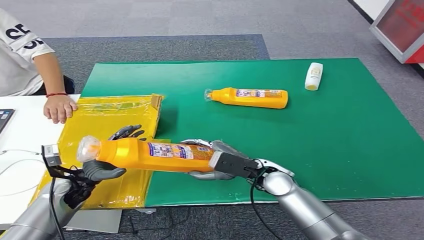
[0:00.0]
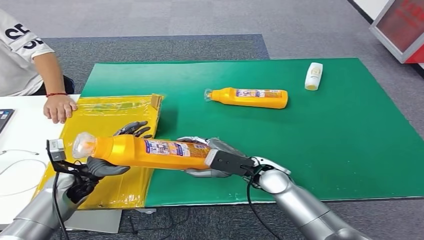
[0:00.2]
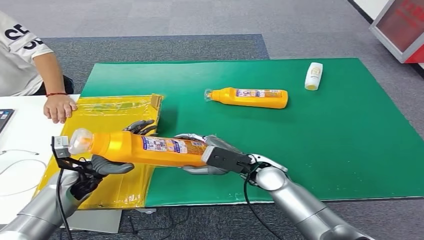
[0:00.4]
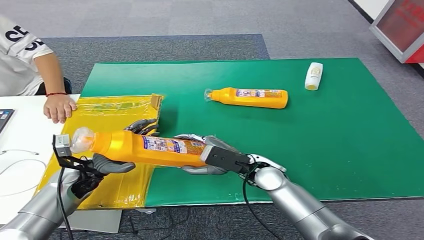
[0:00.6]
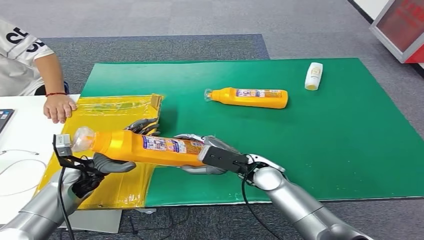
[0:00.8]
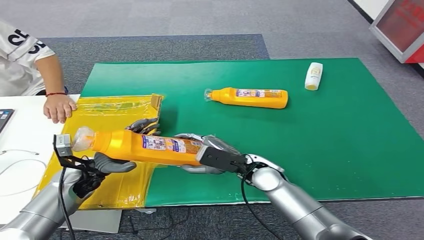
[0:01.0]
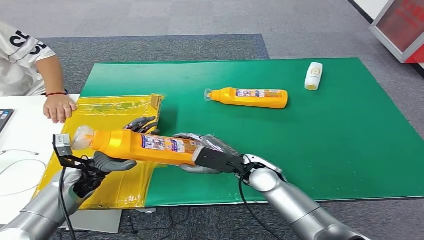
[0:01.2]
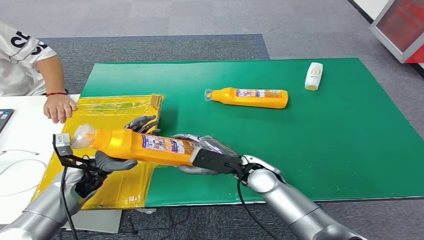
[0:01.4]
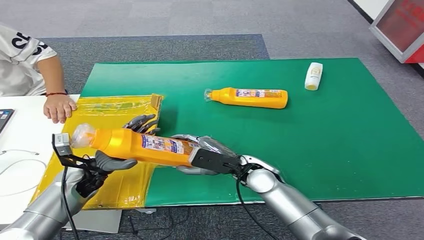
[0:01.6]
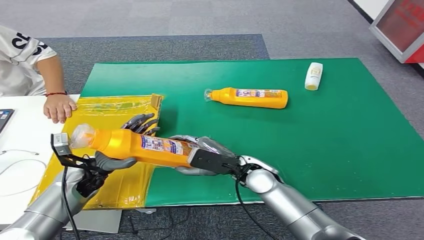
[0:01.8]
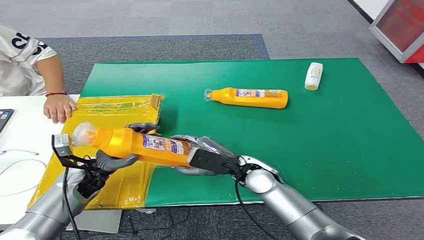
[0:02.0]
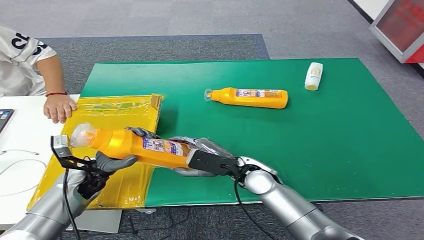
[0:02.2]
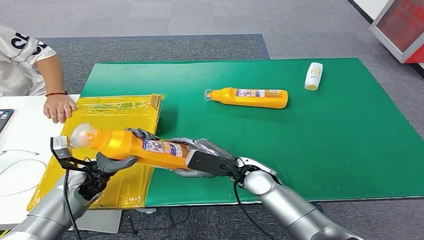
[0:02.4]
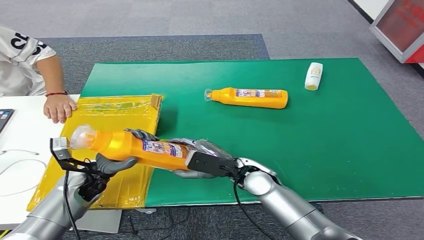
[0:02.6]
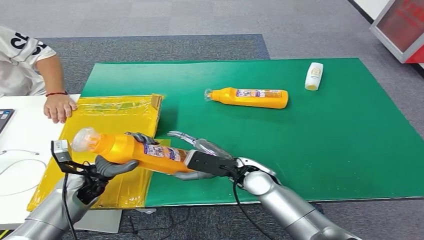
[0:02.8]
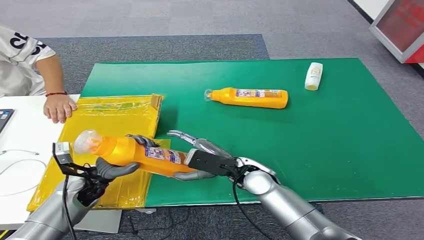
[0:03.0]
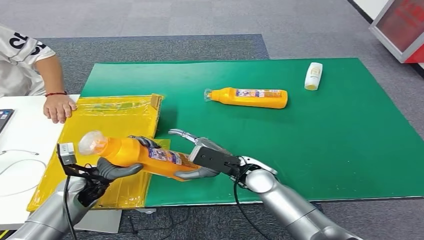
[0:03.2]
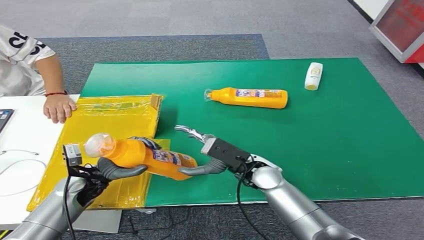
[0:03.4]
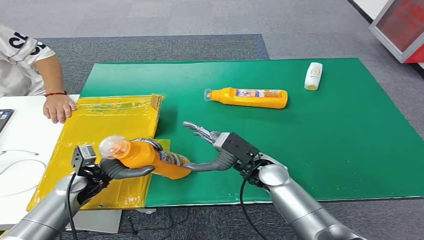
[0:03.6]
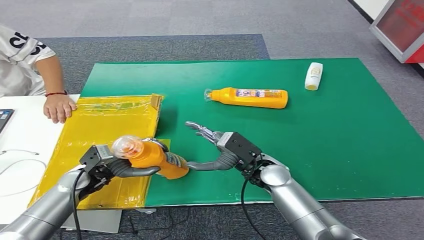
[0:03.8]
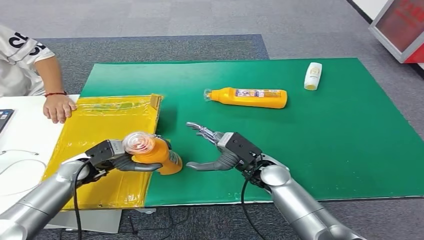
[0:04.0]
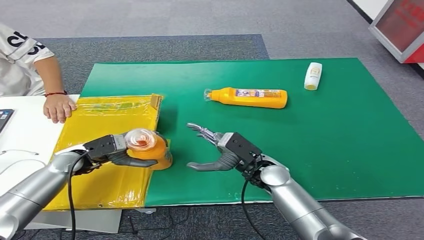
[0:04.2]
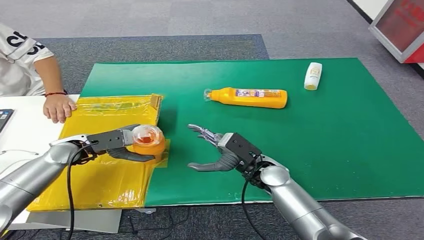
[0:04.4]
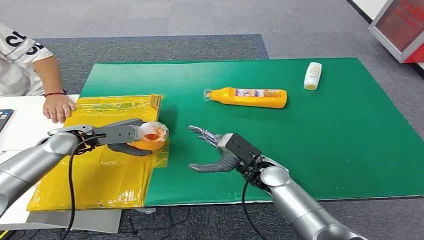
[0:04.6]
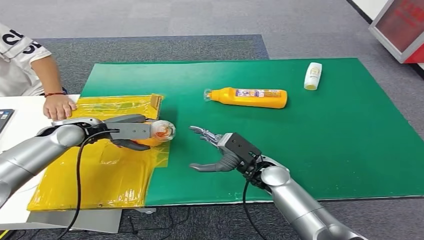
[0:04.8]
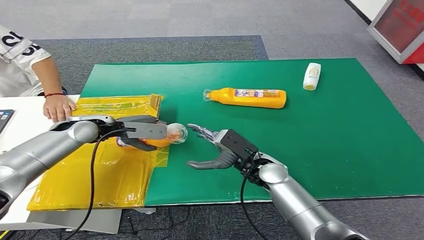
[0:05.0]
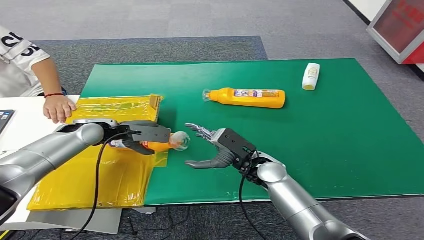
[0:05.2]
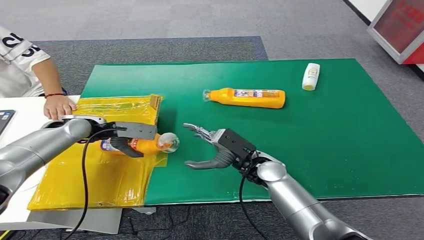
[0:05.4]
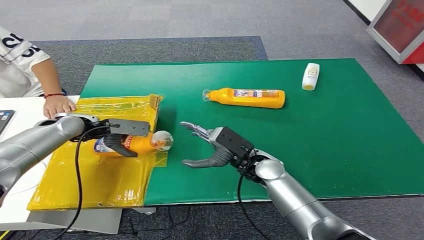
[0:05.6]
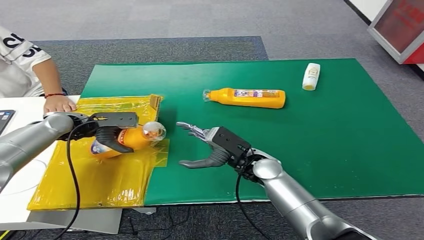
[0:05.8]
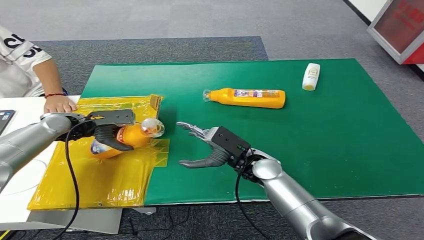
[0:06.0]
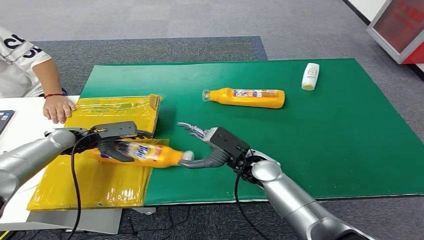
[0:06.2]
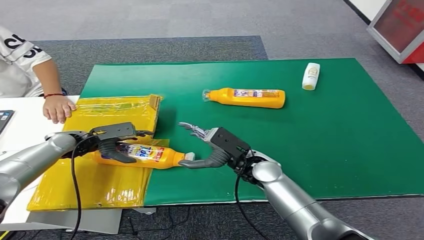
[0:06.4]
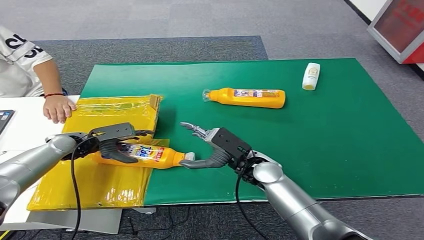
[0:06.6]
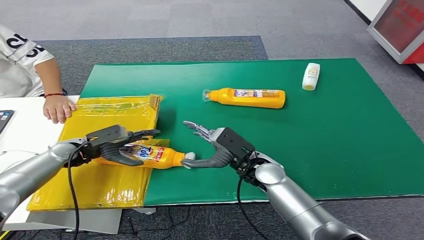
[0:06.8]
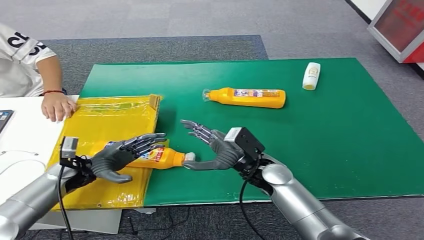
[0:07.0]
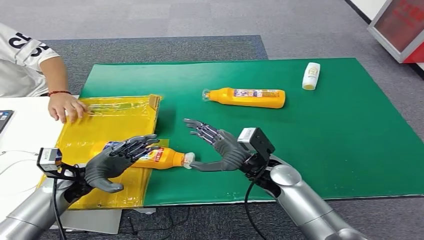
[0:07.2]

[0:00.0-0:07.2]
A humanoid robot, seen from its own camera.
Step, 0:00.0 to 0:07.2: Turn the bottle to the front side.
0:00.0 to 0:01.4: The left hand changes place by roughly 5 cm.
0:01.4 to 0:02.8: The hands move only a little.
0:02.8 to 0:04.4: The left hand travels upward and forward by about 10 cm.
0:04.4 to 0:05.8: The left hand moves forward, approximately 5 cm.

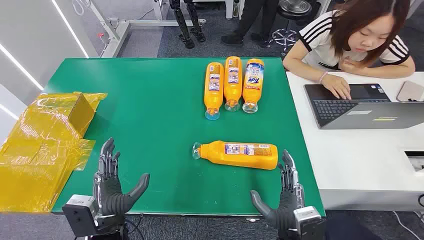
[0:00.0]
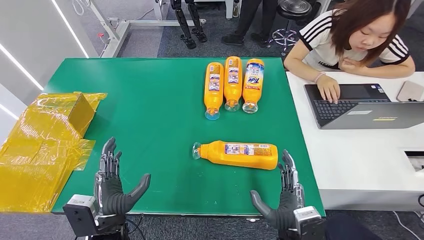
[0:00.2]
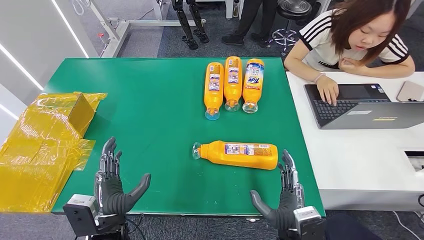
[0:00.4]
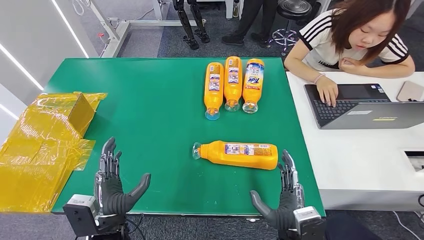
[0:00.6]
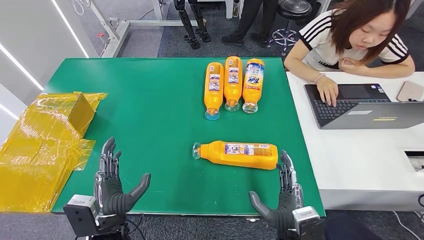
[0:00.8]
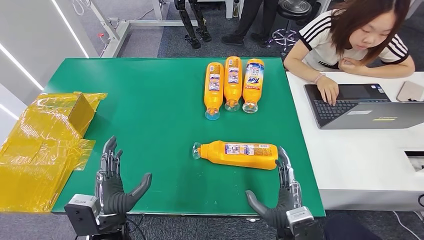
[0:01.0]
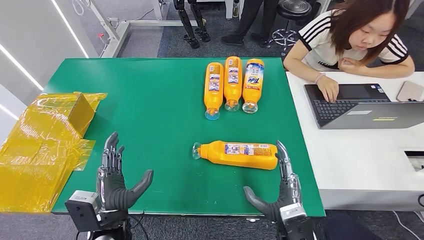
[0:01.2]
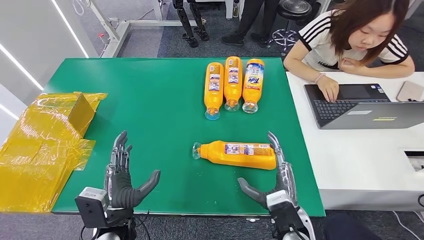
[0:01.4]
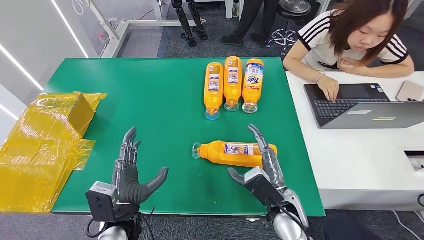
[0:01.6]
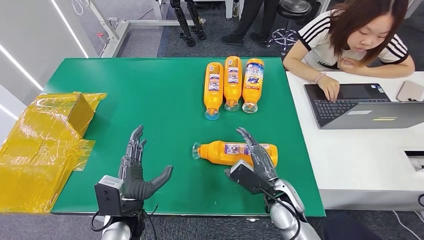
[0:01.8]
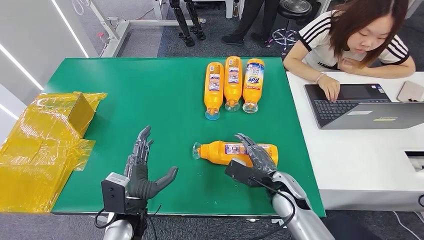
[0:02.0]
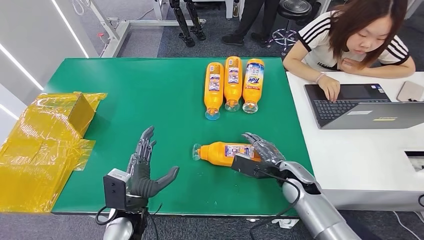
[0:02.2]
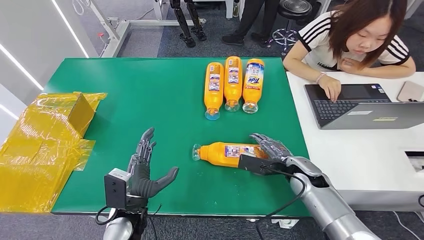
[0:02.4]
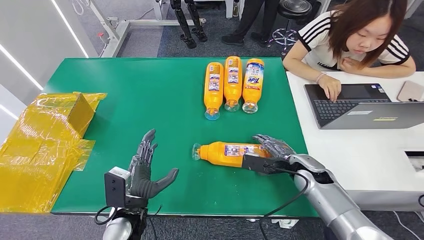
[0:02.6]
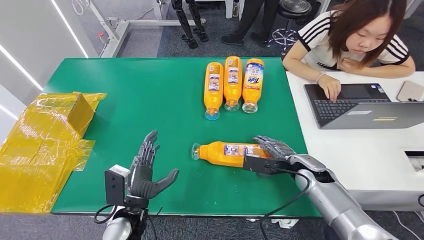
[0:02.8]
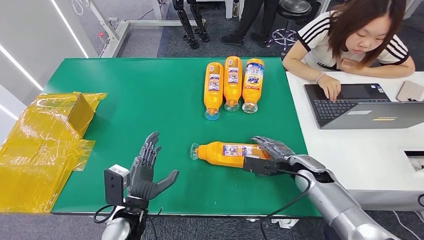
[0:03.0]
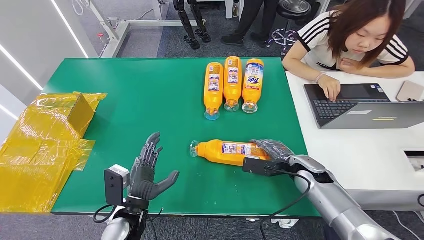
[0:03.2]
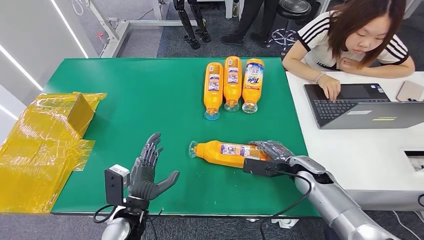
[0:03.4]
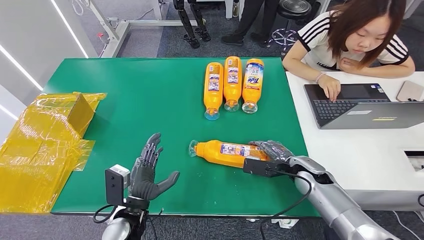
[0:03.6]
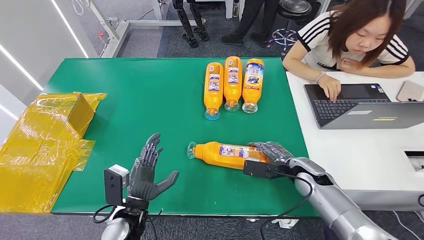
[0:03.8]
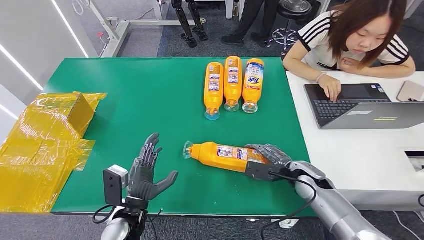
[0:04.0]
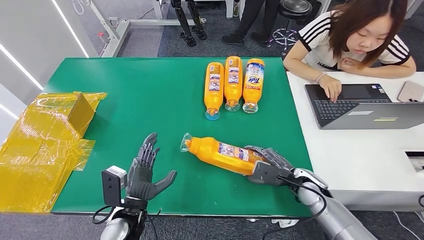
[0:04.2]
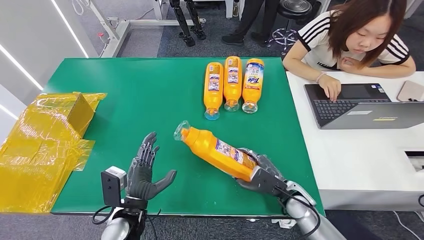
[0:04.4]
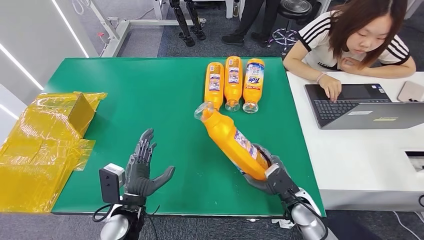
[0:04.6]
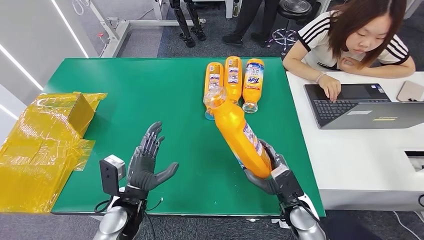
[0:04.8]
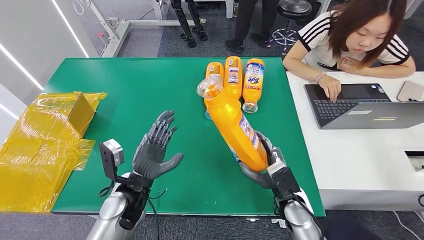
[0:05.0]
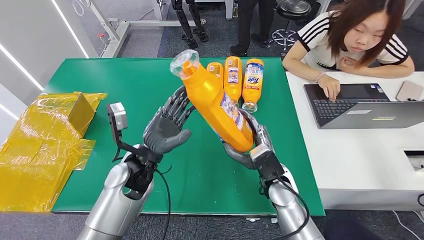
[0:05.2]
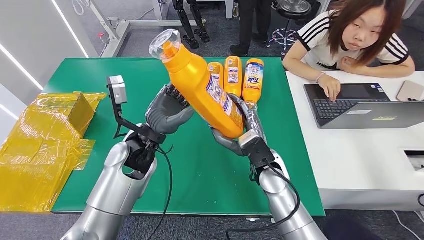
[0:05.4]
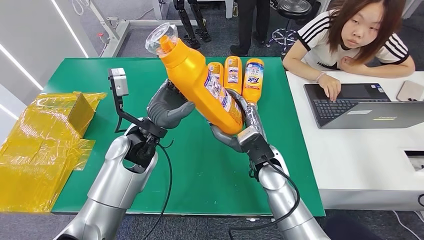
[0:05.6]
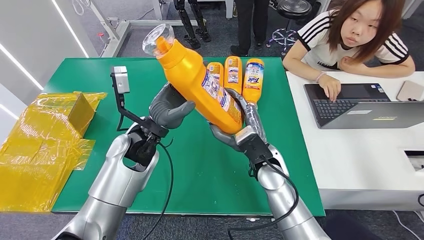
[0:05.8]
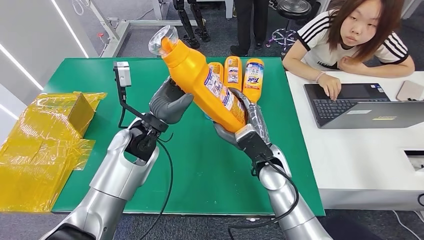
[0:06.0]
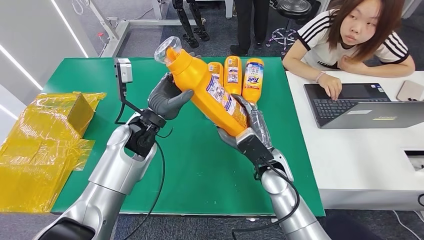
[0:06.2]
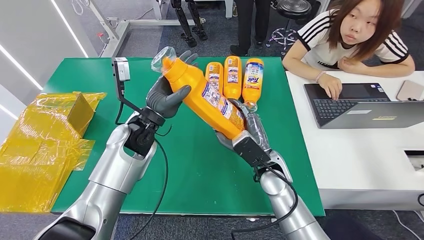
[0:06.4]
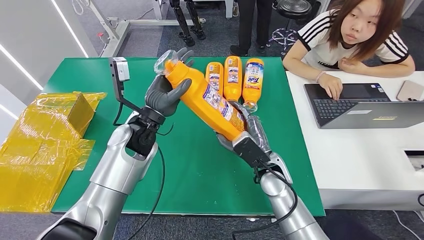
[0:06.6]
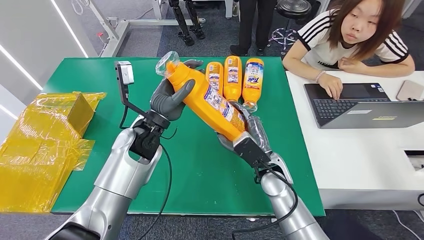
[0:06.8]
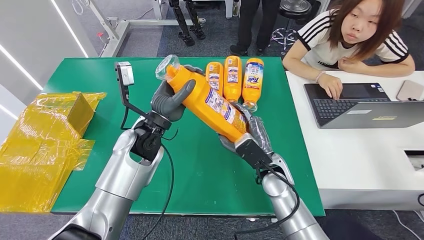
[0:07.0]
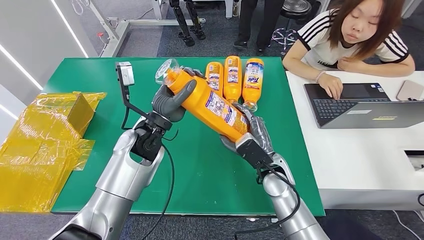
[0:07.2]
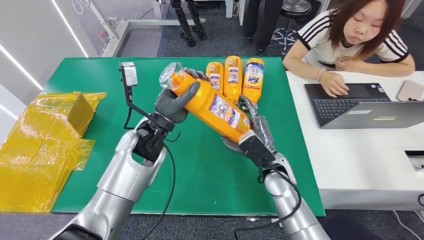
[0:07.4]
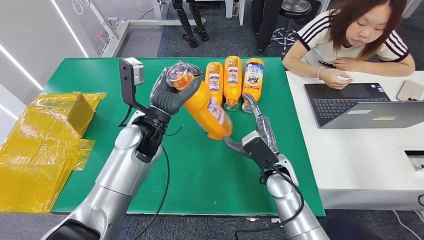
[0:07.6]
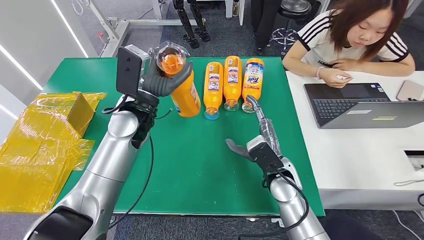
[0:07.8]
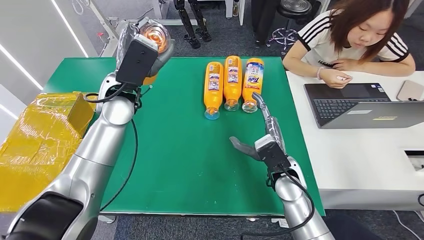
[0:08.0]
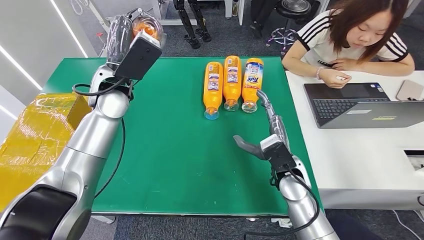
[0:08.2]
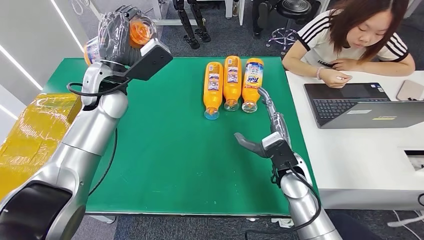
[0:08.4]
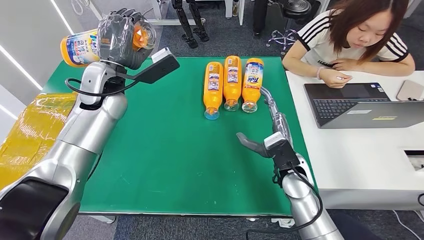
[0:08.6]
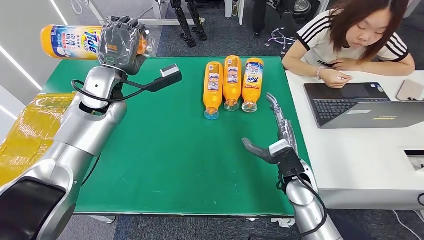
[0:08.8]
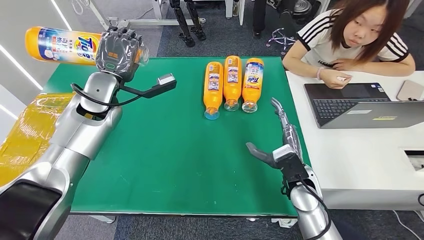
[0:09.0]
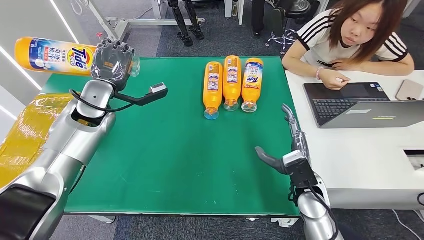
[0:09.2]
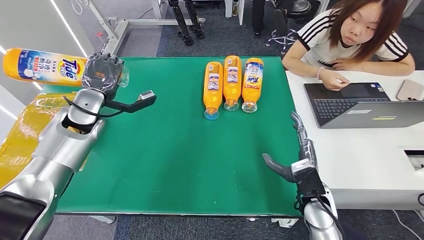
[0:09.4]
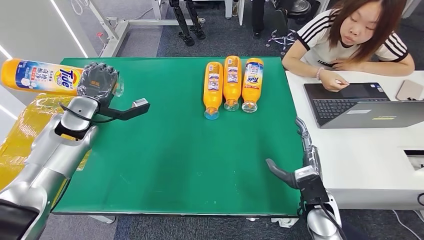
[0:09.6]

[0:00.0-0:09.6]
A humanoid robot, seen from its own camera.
Step, 0:00.0 to 0:06.0: Pick up the bottle from the table.
0:01.6 to 0:03.2: The right hand moves forward and to the right, roughly 15 cm.
0:03.2 to 0:04.8: The right hand shifts approximately 10 cm backward and to the left.
